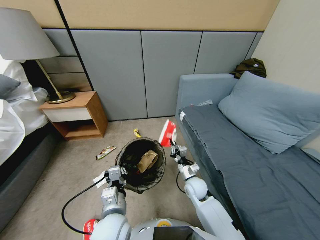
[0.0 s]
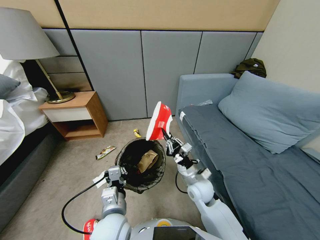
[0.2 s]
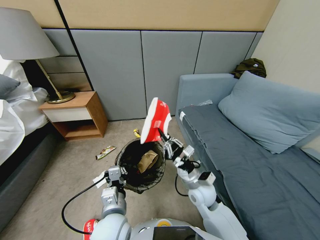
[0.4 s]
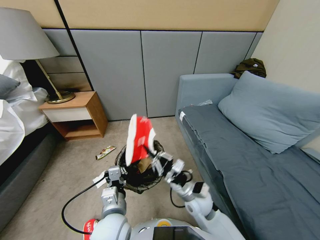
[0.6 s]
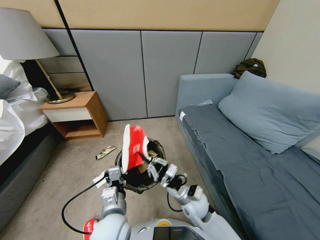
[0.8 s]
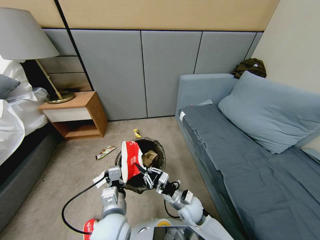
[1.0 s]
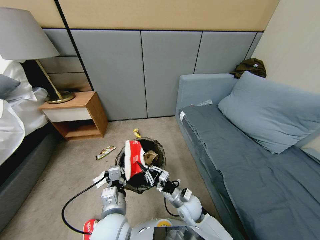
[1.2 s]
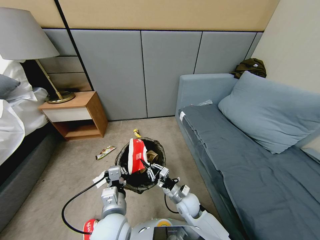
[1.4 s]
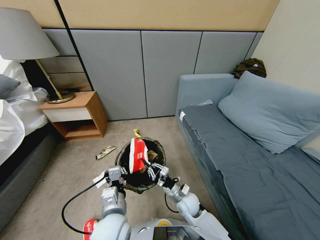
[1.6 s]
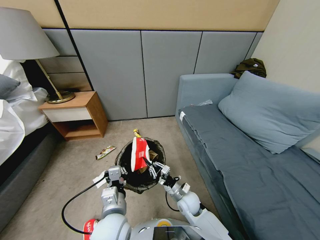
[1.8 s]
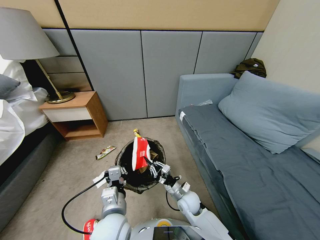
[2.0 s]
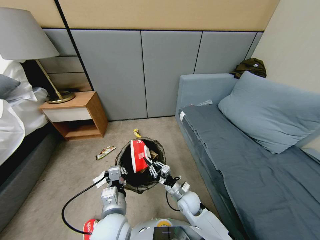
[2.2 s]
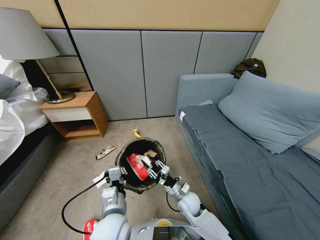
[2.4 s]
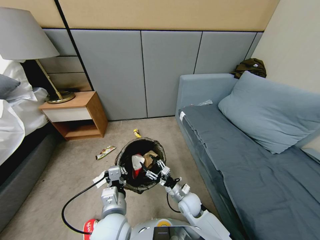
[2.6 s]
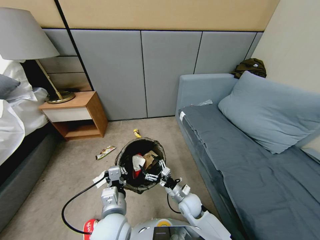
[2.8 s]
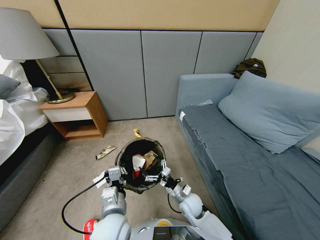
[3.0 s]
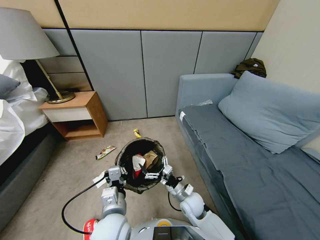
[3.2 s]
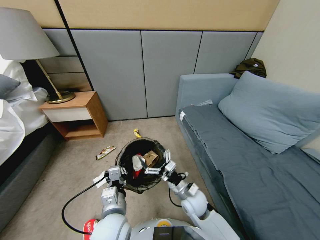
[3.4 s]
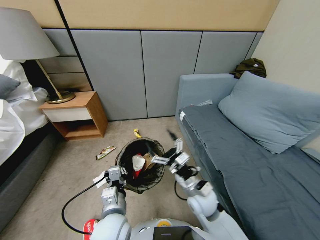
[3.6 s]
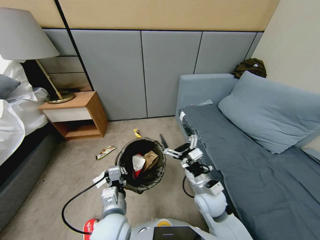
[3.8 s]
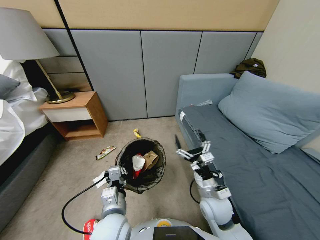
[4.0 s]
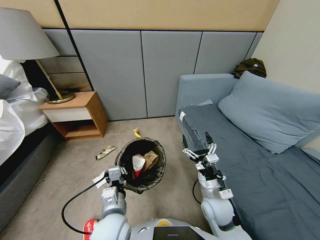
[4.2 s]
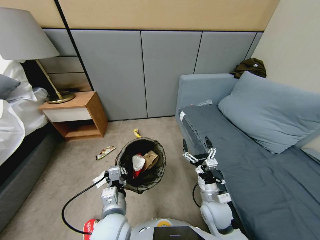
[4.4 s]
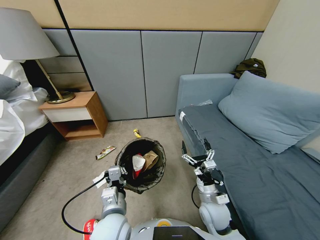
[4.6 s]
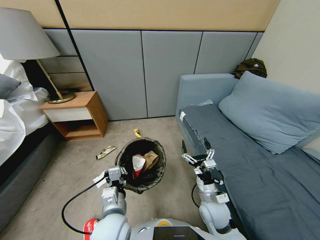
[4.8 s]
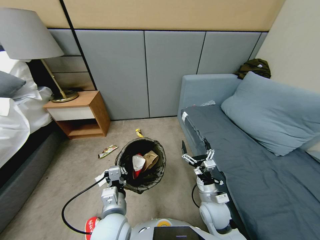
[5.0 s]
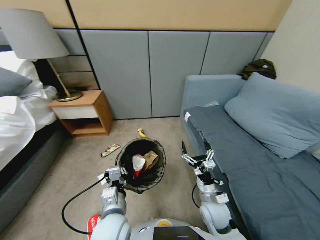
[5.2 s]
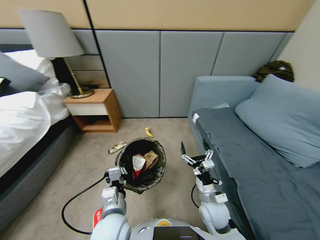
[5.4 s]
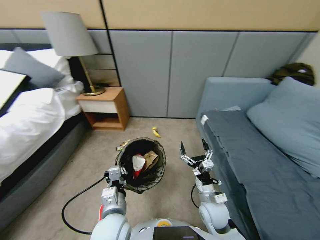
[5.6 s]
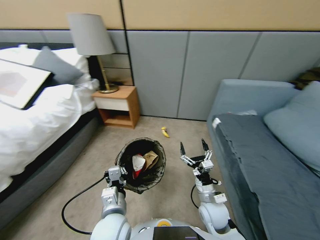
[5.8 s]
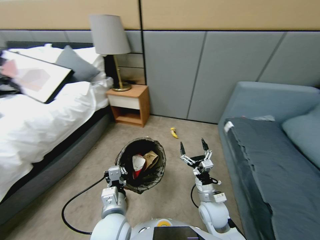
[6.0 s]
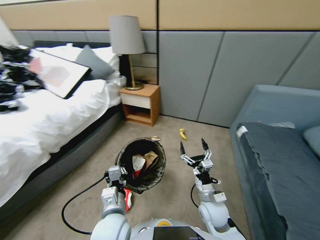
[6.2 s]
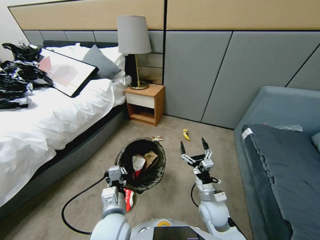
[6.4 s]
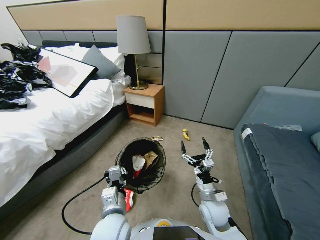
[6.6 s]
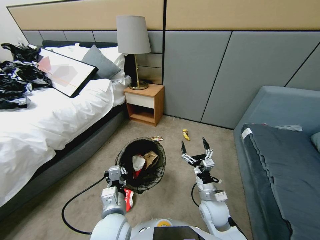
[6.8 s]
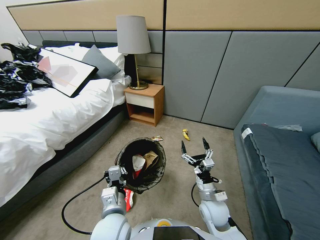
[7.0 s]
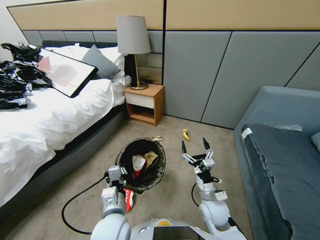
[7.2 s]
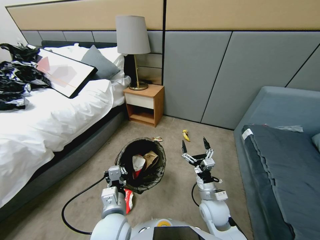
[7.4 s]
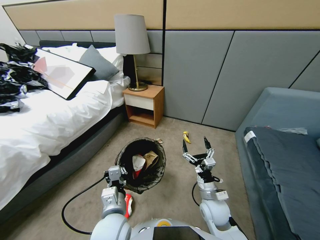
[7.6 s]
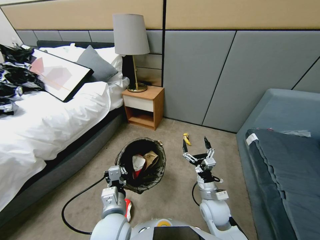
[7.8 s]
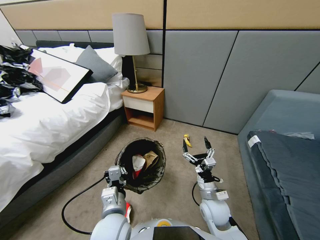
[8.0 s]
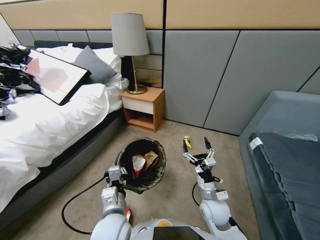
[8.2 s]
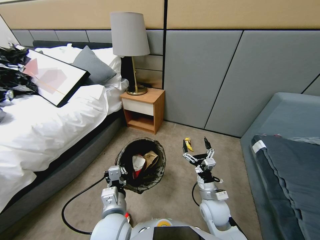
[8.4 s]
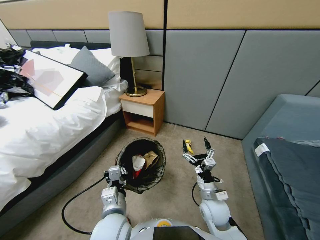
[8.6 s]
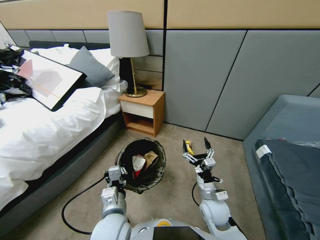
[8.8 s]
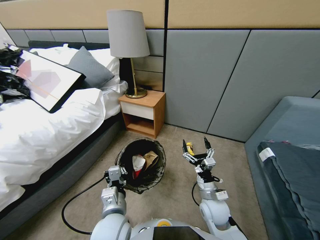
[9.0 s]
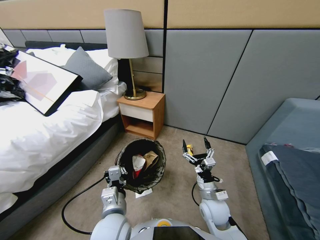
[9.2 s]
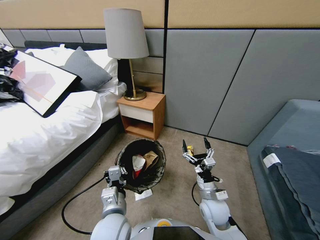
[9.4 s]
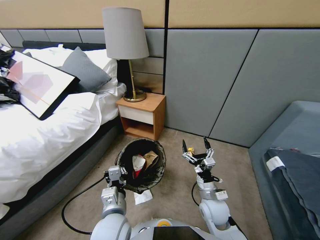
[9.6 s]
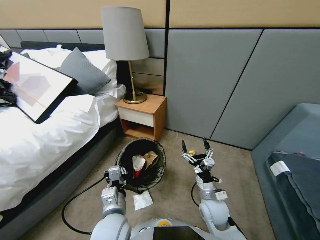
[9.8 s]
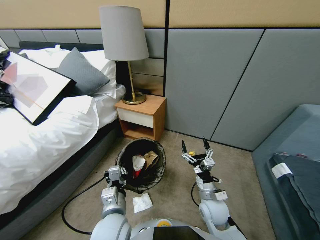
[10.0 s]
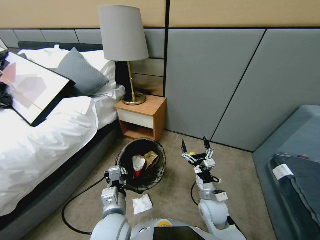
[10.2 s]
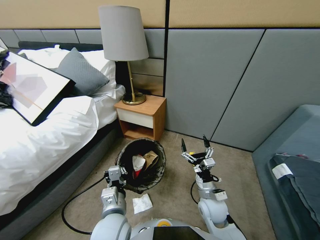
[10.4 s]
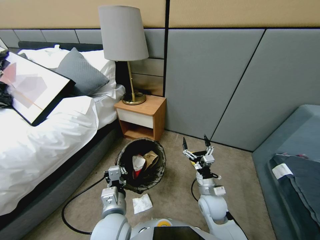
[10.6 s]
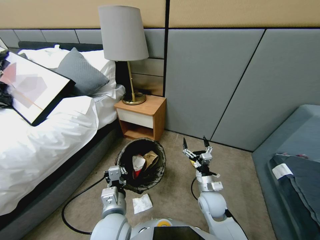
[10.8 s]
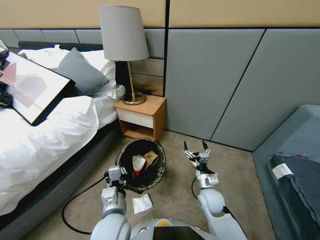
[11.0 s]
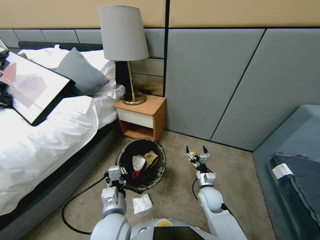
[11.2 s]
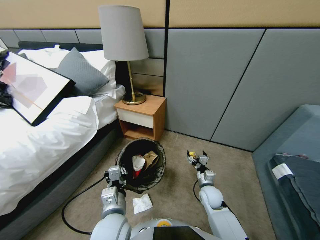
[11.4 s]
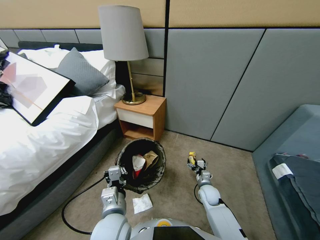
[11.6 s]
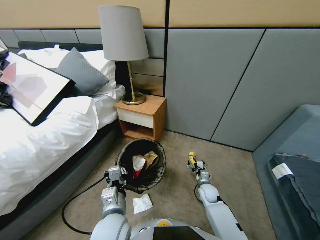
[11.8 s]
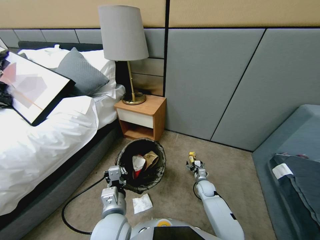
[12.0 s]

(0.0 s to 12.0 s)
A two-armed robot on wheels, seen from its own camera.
Task of the whole recording: Pick up the trash bin, then pick up the garbage from the floor and place it into the trash bin.
0.0 s - 1.6 s: The right gripper travels downward by about 10 cm.
1.6 s - 3.0 s: The right gripper opens its fingers.
3.0 s - 4.4 s: The right gripper is displaced upward and to the right by approximately 10 cm.
10.4 s - 12.0 s: The right gripper travels downward and forward by roughly 20 cm.

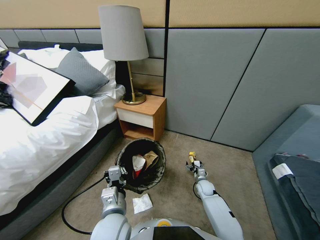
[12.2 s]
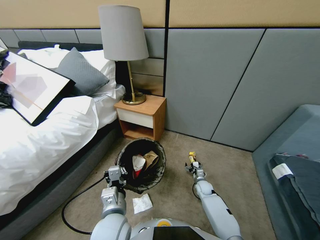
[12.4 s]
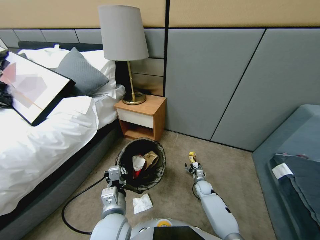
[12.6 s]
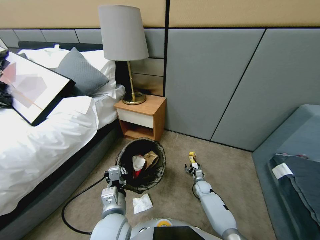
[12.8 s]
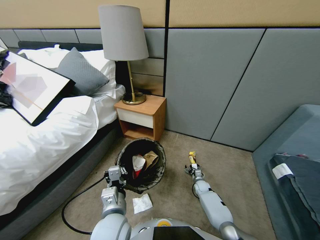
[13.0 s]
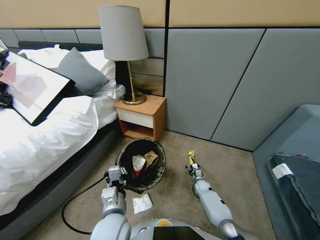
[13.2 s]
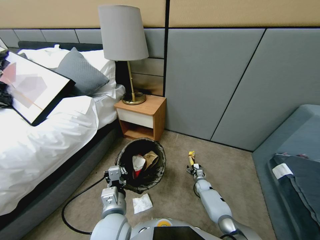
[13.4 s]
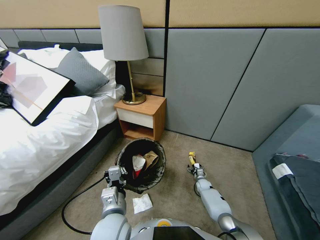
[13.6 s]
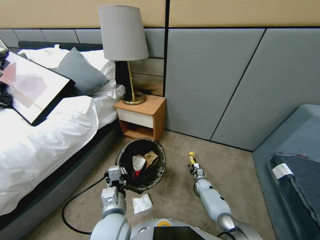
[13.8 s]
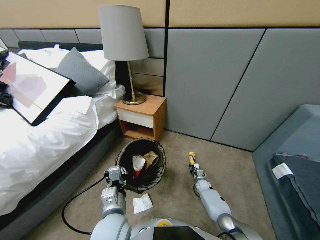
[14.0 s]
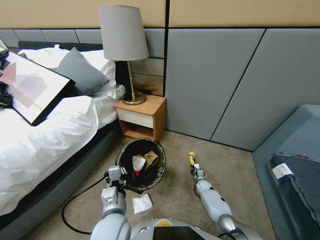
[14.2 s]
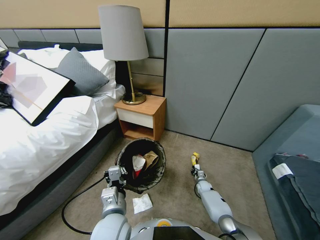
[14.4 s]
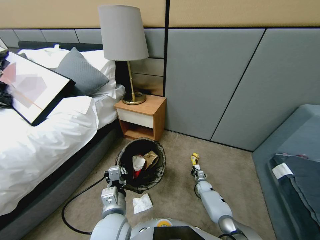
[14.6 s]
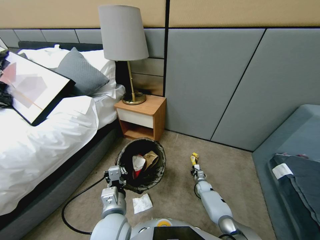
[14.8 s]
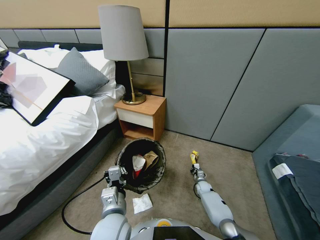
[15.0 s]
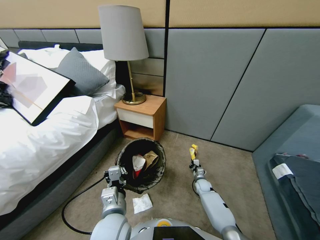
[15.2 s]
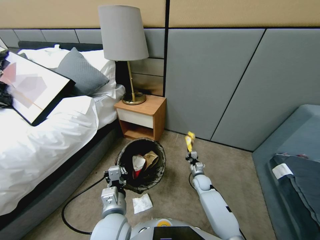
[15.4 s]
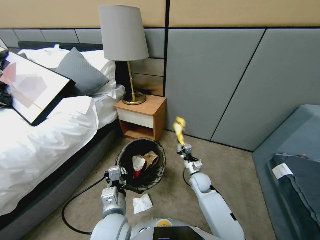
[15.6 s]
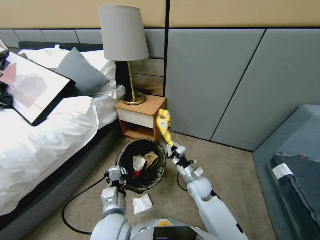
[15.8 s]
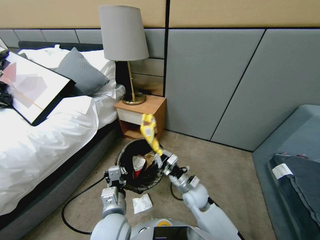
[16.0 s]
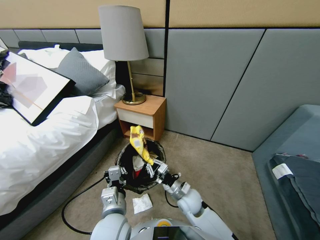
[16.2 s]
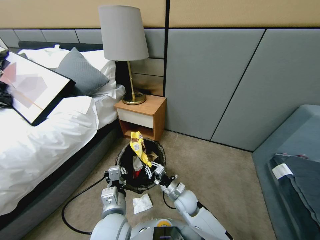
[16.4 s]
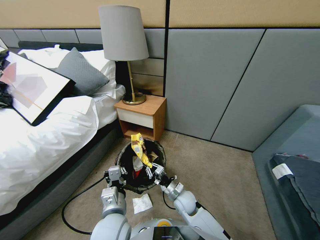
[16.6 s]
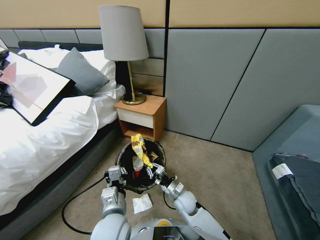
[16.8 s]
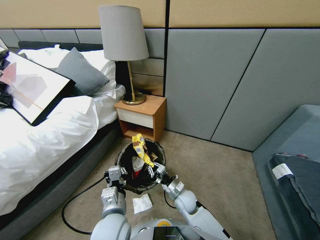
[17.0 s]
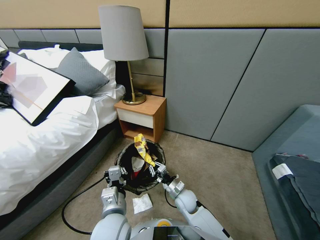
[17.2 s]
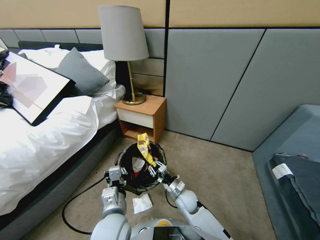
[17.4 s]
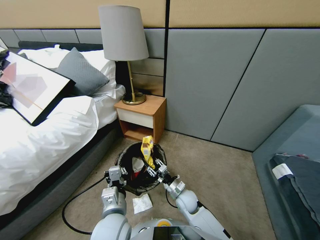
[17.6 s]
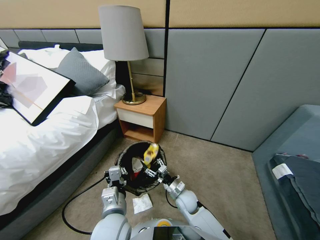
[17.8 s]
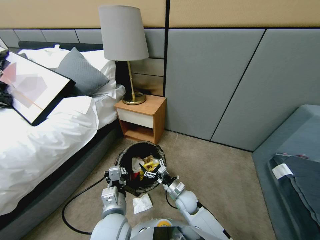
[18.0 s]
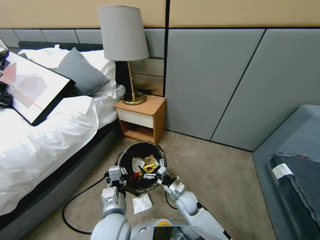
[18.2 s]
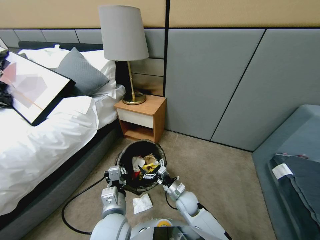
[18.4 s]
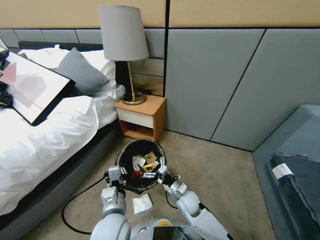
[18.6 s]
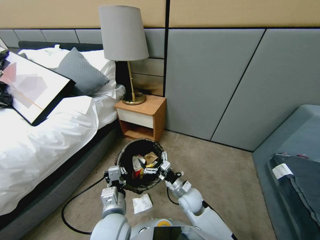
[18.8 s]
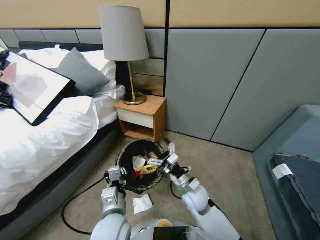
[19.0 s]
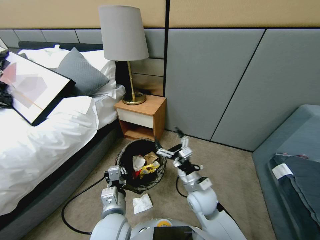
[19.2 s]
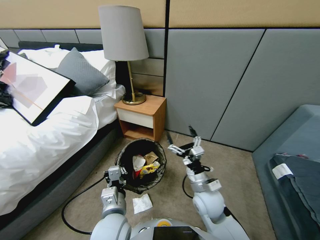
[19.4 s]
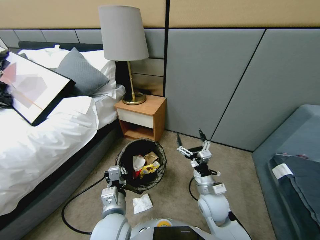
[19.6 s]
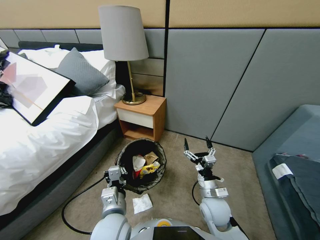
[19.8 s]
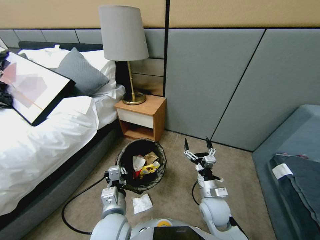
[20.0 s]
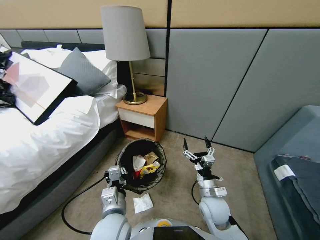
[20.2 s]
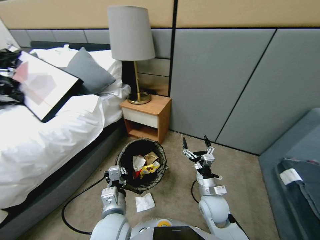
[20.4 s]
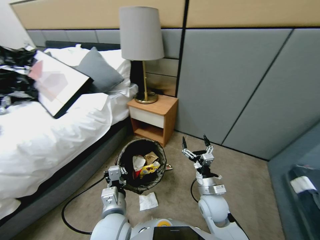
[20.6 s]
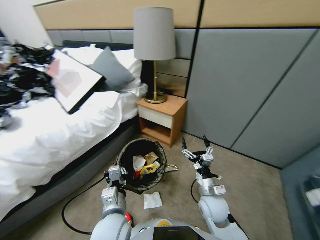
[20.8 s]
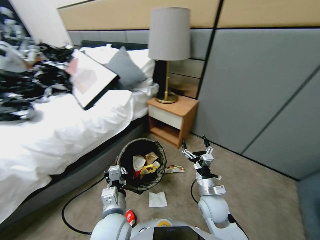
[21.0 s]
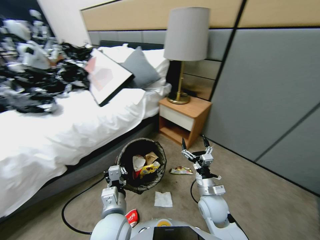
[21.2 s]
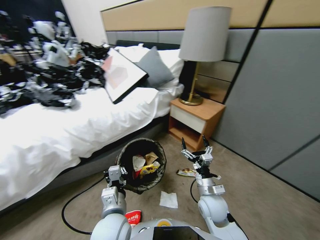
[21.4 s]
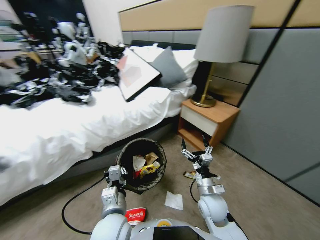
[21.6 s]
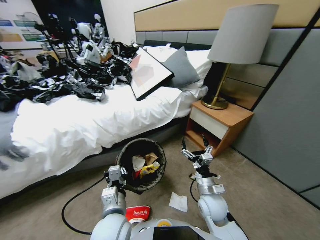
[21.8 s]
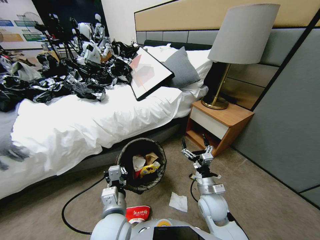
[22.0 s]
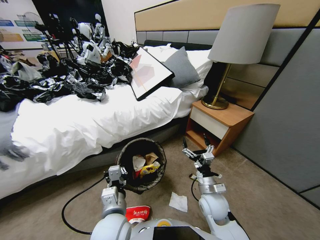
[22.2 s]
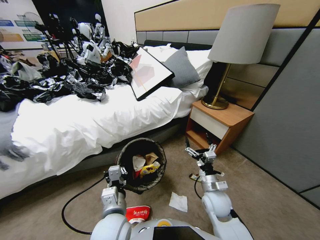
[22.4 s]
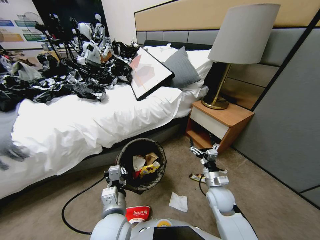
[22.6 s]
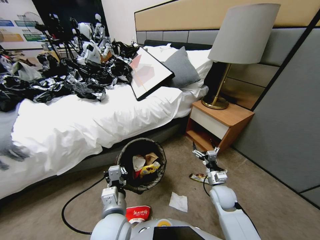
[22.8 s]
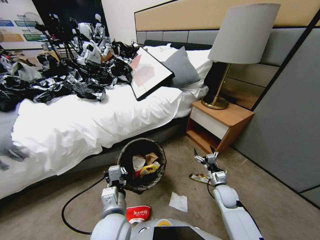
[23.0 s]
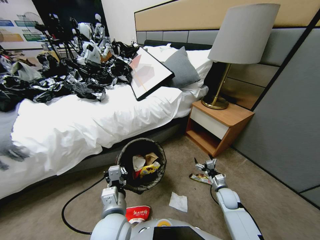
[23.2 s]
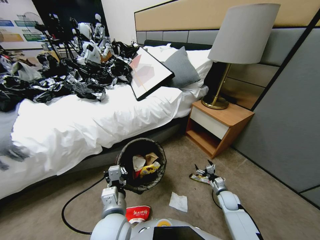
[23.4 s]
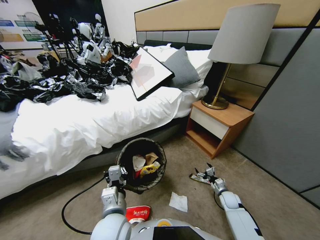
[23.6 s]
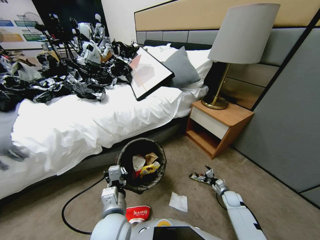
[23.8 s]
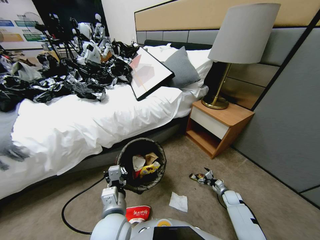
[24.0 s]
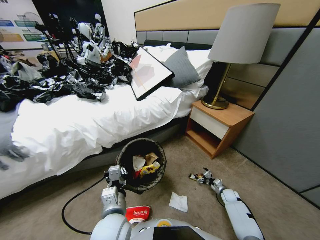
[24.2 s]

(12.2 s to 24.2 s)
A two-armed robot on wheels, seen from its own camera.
Task of the whole recording: Pick up the trash bin, then pick up the garbage from the floor and place it into the trash bin.
12.2 s - 13.8 s: The right gripper moves downward, roughly 10 cm.
13.8 s - 15.2 s: The right gripper heads upward, covering approximately 10 cm, and closes its fingers.
15.2 s - 16.6 s: The right gripper is displaced to the left, backward and upward by approximately 25 cm.
16.6 s - 18.2 s: The right gripper opens up.
18.2 s - 19.8 s: The right gripper goes some 15 cm upward and to the right.
21.2 s - 22.6 s: The right gripper heads to the right, covering about 5 cm.
22.6 s - 24.2 s: The right gripper goes roughly 30 cm downward and to the right.
